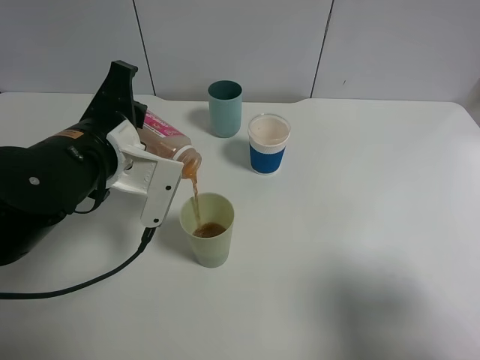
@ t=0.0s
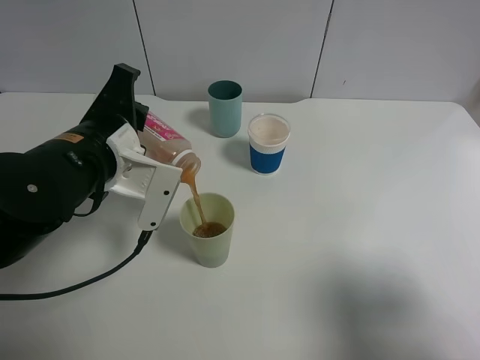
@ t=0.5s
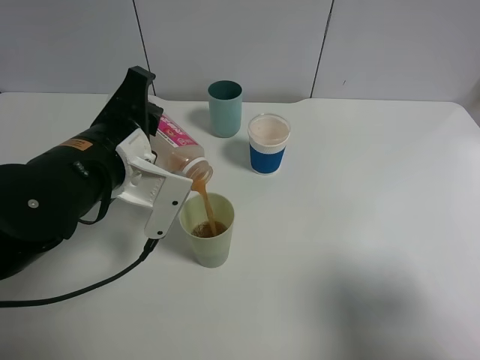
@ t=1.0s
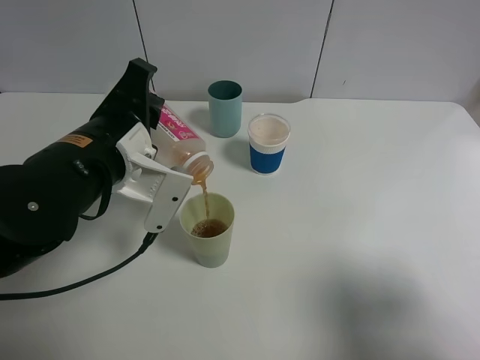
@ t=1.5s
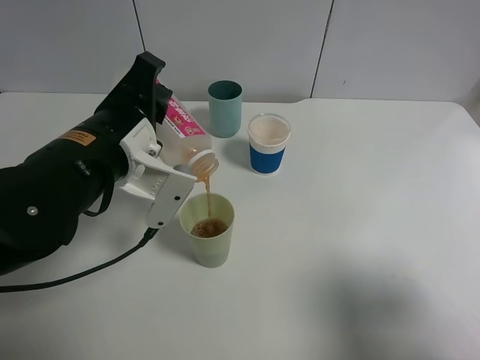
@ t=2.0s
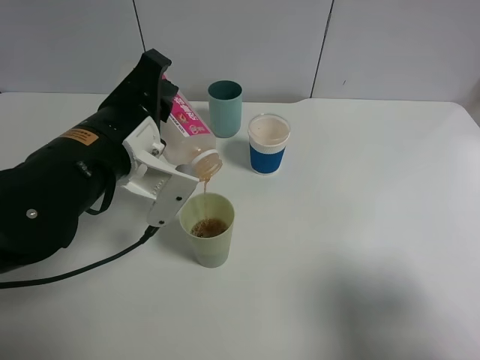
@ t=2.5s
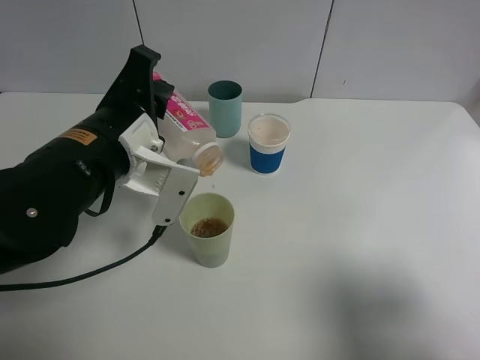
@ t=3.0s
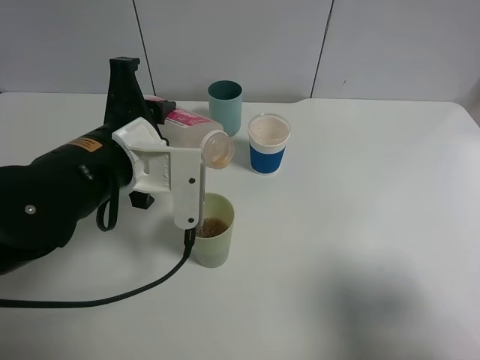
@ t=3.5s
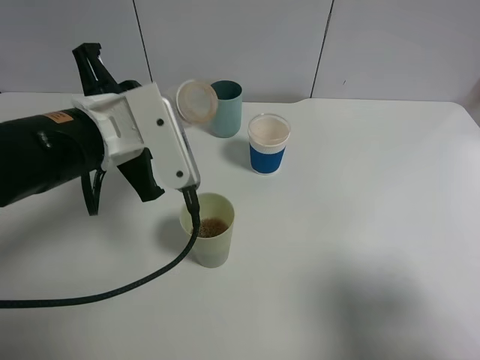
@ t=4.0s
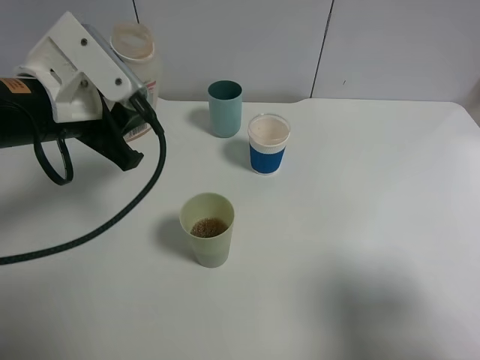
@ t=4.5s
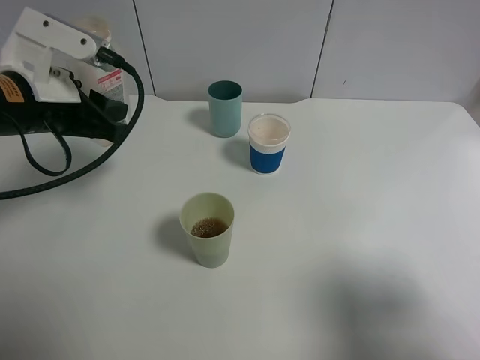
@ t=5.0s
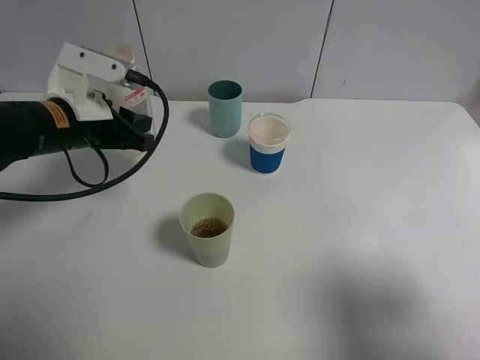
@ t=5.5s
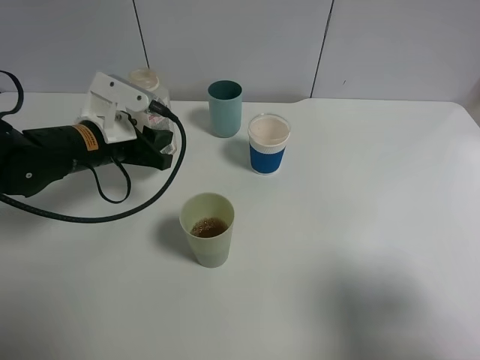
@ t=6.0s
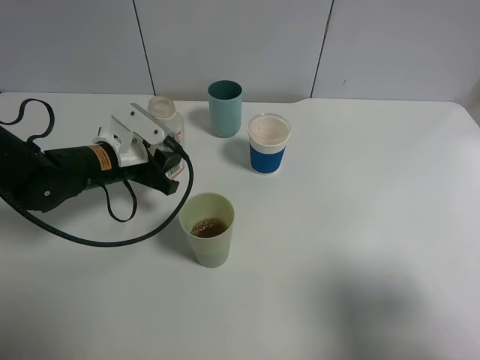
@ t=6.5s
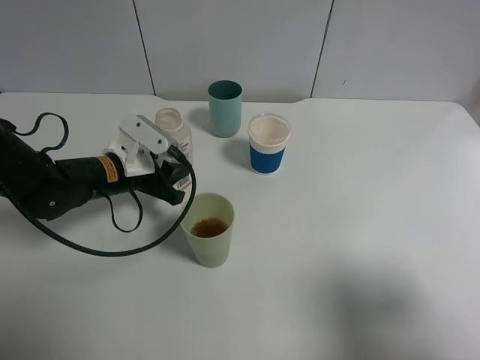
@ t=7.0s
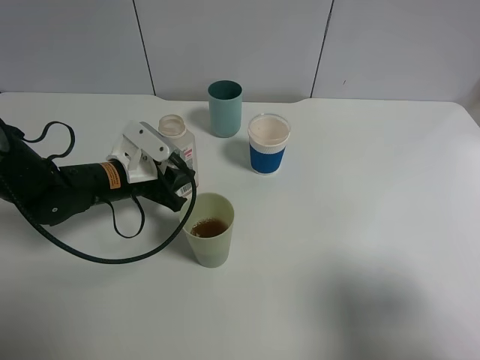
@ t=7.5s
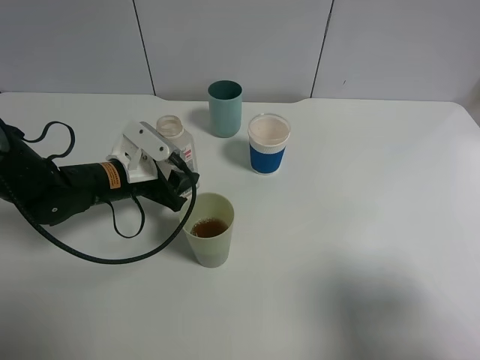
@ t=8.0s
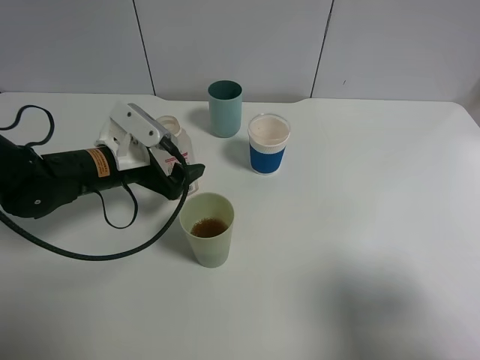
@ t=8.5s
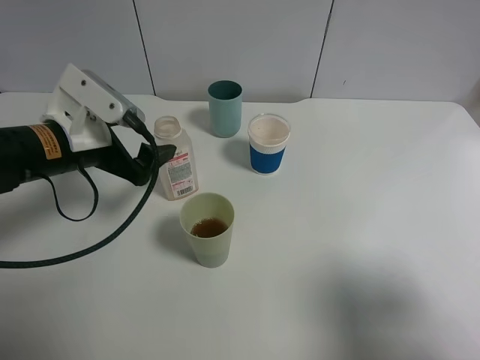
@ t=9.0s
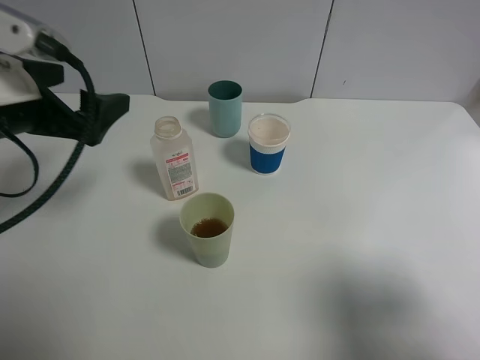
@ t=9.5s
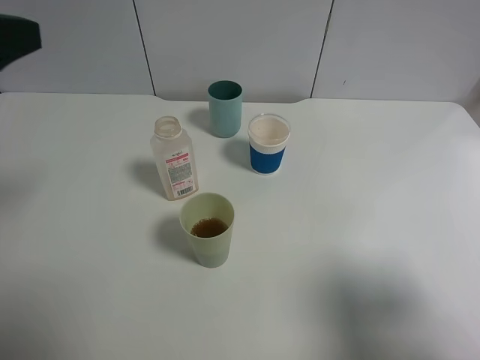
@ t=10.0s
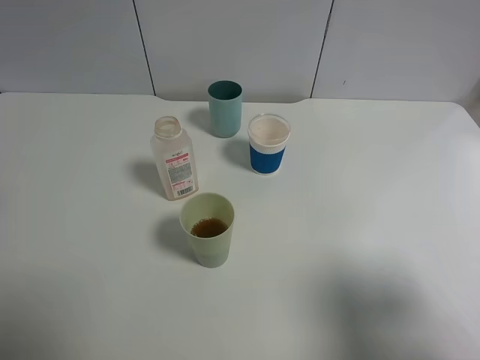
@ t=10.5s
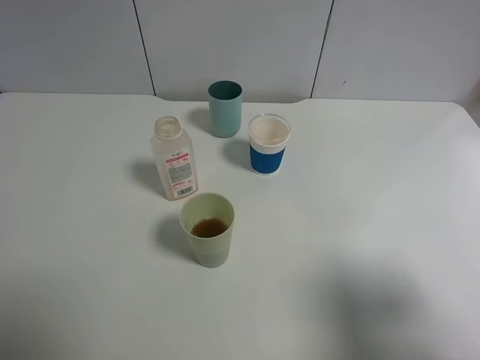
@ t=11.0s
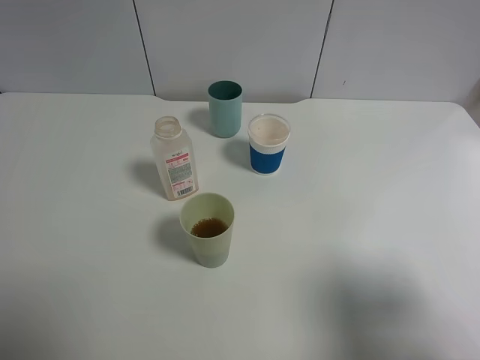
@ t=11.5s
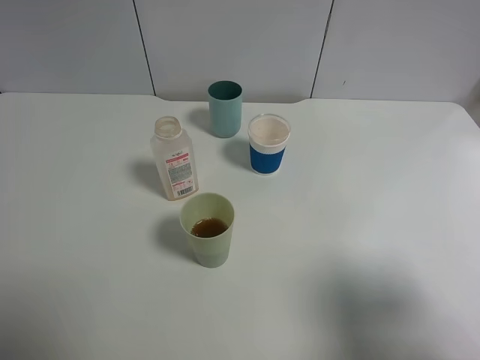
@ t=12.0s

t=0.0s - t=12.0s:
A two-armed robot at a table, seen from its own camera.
Task of the whole recording: use a gripper to hold the bottle of the drink and pour it into a random cup.
Step, t=0.0s - t=2.5s: Pour the cranberry juice into the White Plastic Cup with the left gripper.
Step, t=3.0s - t=8.0s: Place the cranberry juice bottle on the table with the left gripper.
t=0.0s - t=2.0s: There are only small adjustments of the grippers.
t=4.0s - t=6.0s: The left gripper moves forward and downward, roughly 10 cm.
t=6.0s - t=8.0s: The left gripper travels downward by about 5 cm, and opens its fingers.
t=8.0s - t=10.0s: The left gripper moves upward and backward, some 30 cm, and opens.
t=10.0s - t=12.0s: The left gripper moves backward, roughly 20 cm.

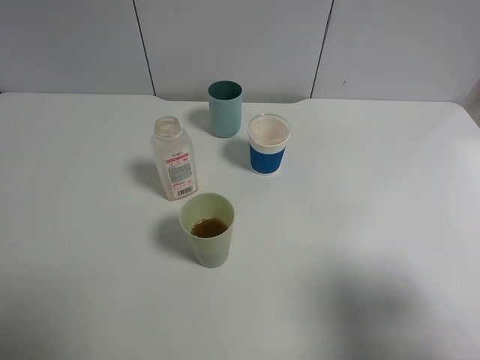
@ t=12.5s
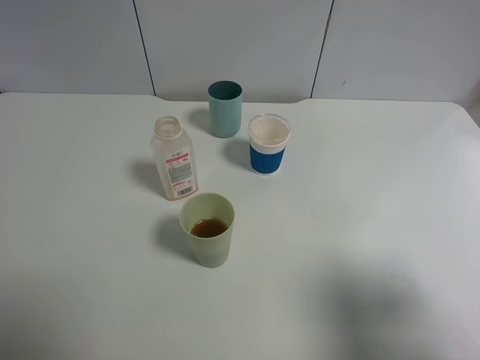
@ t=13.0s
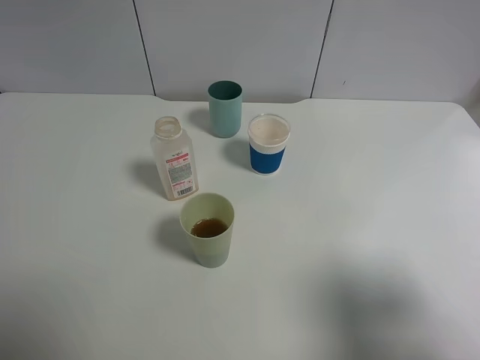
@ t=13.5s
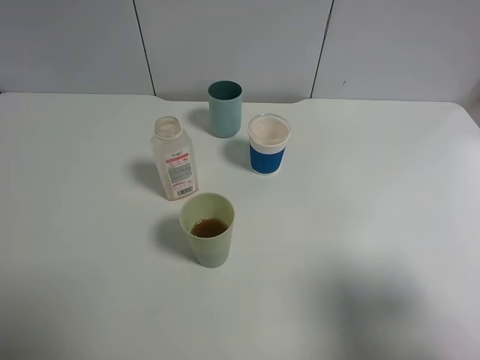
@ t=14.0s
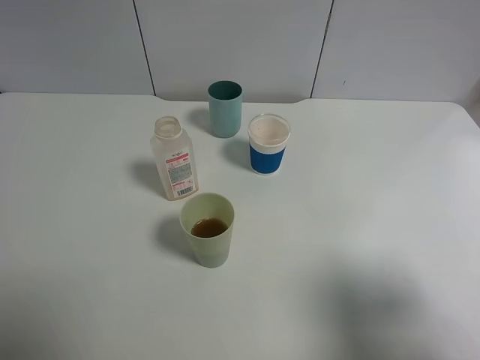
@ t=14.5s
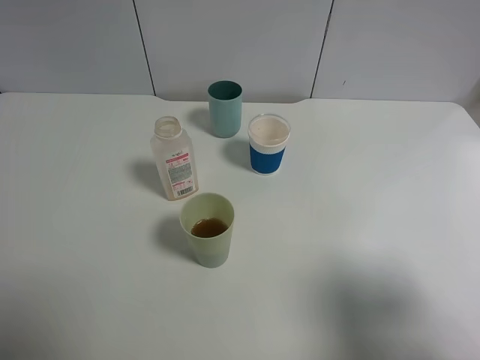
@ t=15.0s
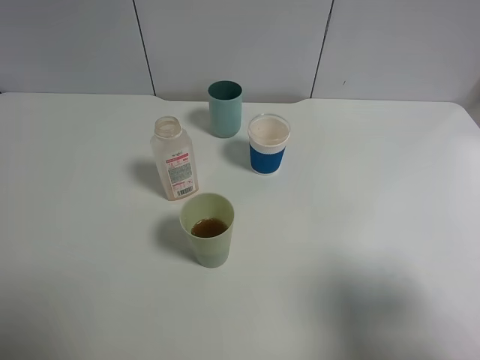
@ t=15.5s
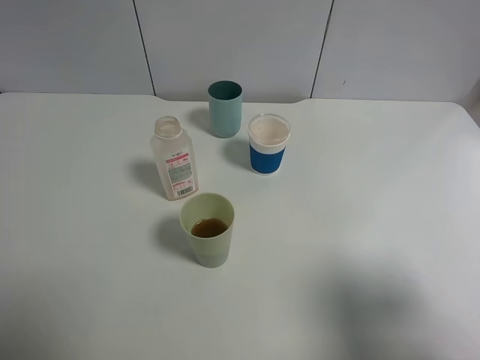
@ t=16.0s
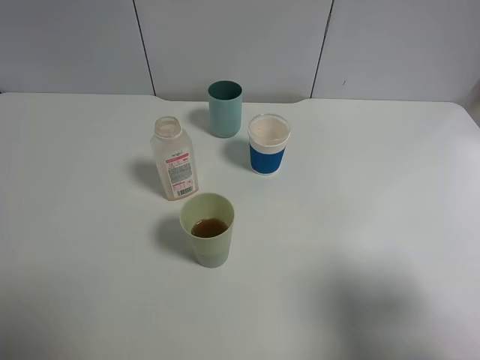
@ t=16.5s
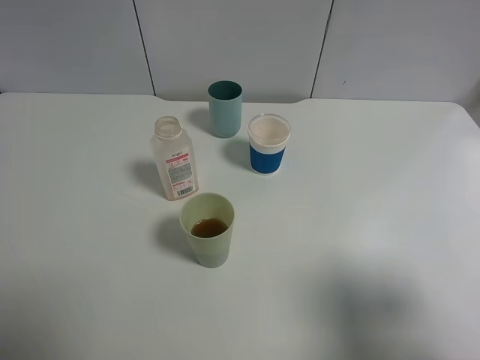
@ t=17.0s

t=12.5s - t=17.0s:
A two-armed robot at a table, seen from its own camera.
Task of the whole recording: use a gripper to hold the bottle of the drink and pour it into a random cup.
t=14.5s - t=17.0s: Both grippers stay put.

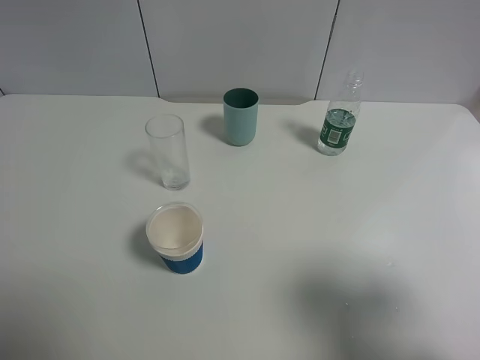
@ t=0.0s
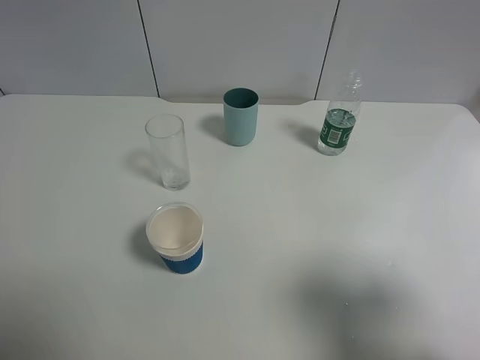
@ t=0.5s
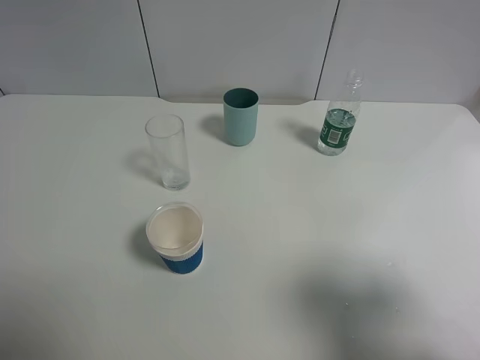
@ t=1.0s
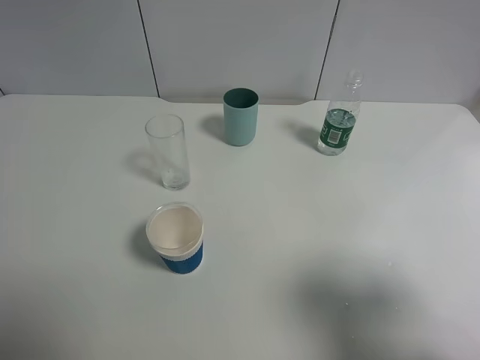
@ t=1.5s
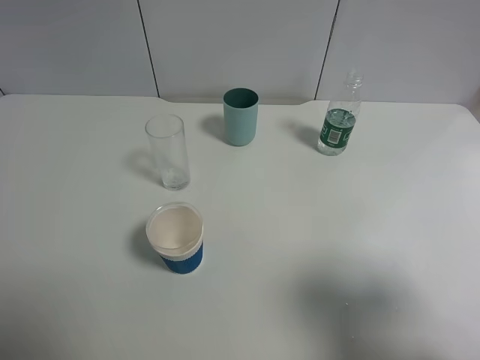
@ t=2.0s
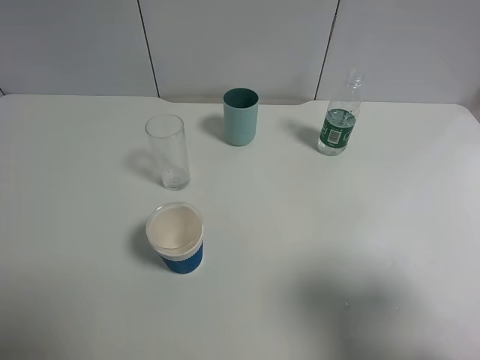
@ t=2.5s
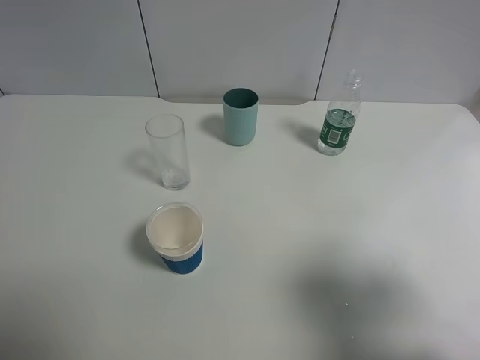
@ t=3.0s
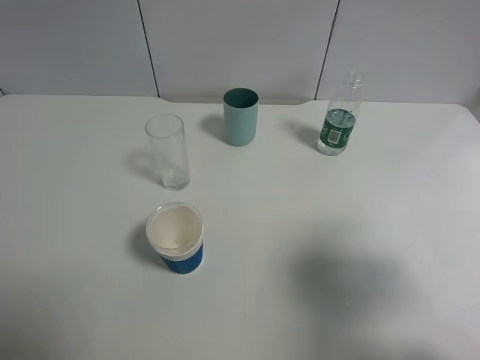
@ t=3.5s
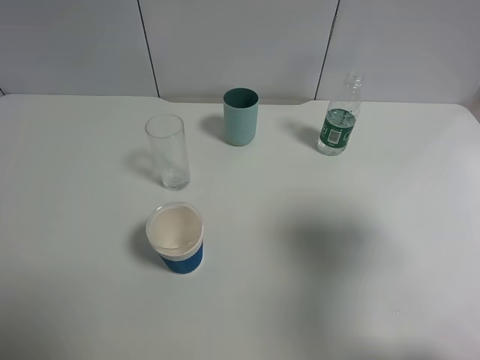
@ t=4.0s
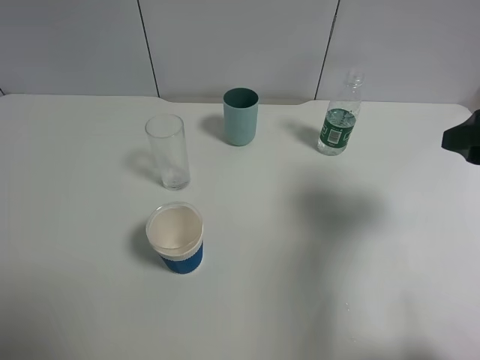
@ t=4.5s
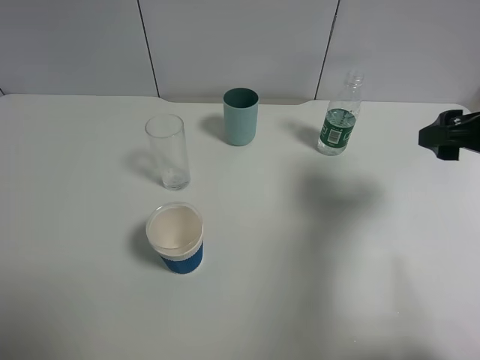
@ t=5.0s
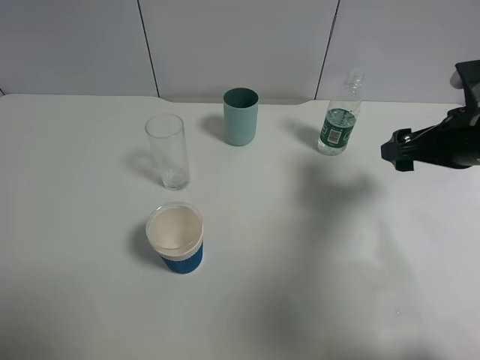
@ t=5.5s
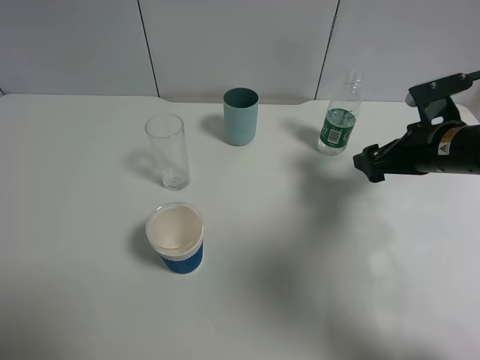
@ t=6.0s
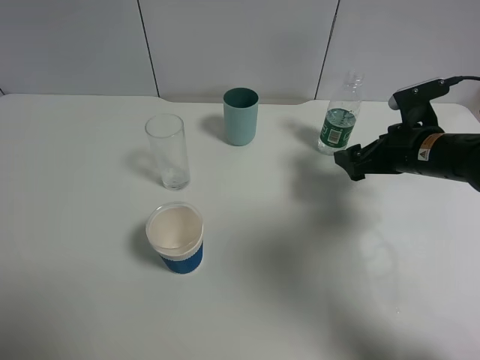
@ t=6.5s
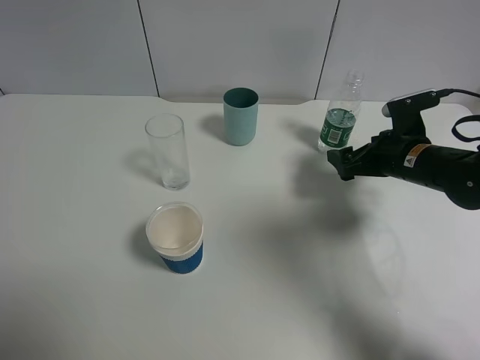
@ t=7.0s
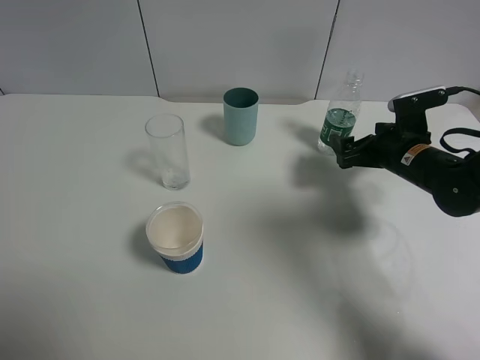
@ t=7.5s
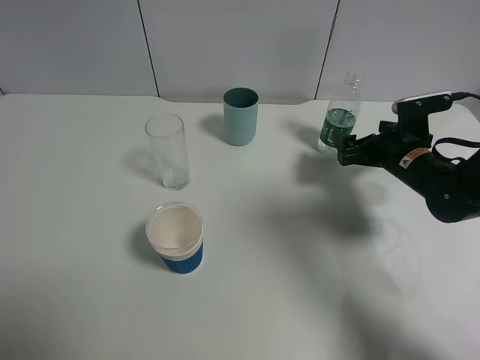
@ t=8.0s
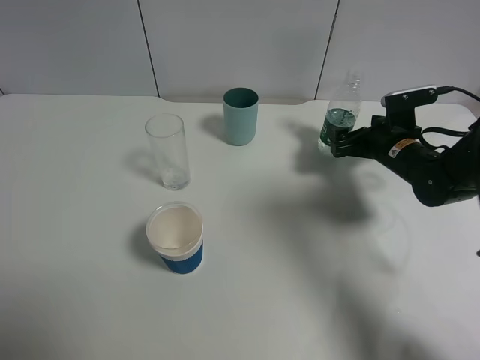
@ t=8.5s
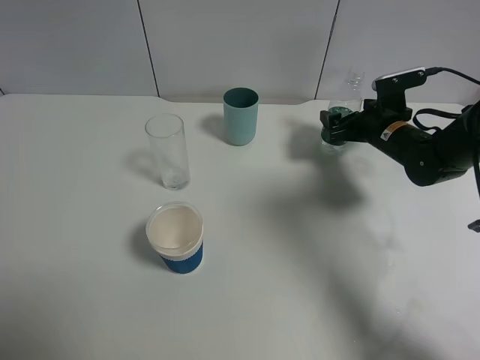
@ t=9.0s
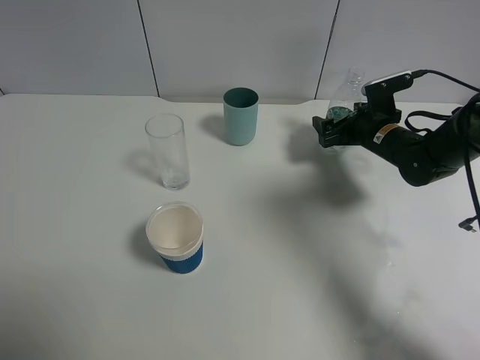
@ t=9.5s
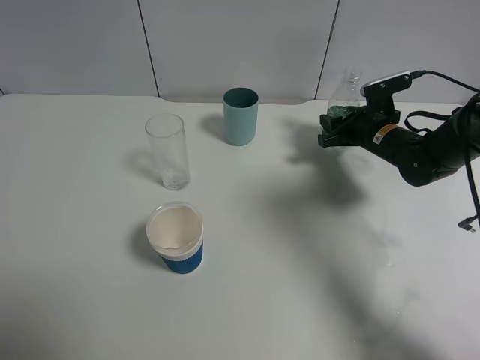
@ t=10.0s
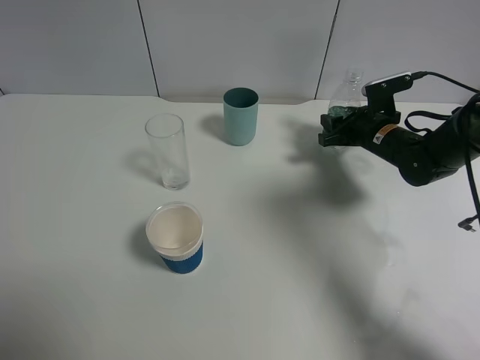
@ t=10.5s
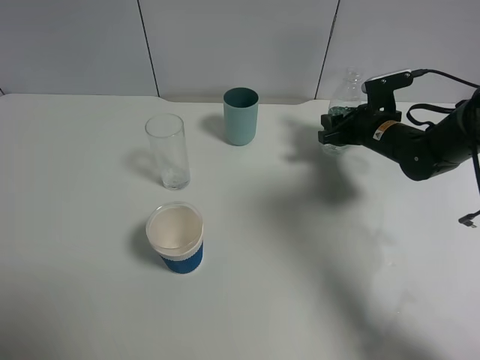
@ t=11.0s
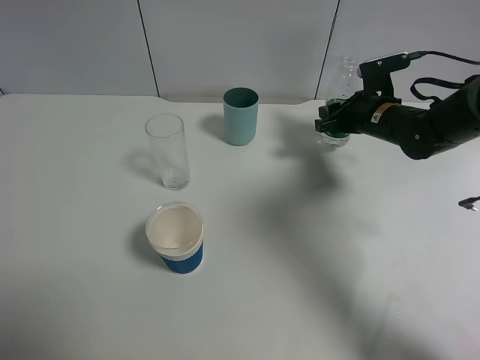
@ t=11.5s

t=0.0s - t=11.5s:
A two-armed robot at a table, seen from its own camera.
Task of the whole recording: use a gripper to hold the bottle of the drink and pour it into a random cup.
Step, t=0.0s - t=10.0s: Grasp the mineral water bottle with the right gripper.
t=0.0s - t=2.0s: Both grippers stay put.
t=2.0s - t=4.0s: The right gripper is displaced forward by some 10 cm.
t=4.0s - t=6.0s: The right gripper travels forward and downward by some 20 cm.
t=6.0s - t=7.5s: The right gripper shifts by roughly 5 cm.
t=7.5s - t=9.5s: The right gripper is displaced forward by some 5 cm.
t=9.5s - t=11.5s: The right gripper closes.
